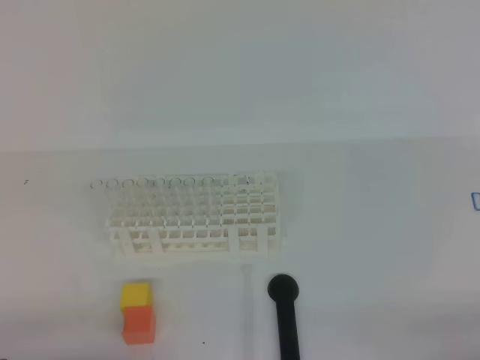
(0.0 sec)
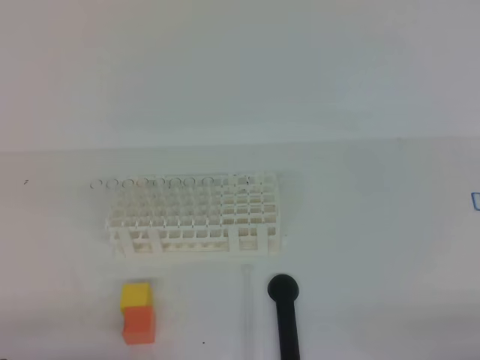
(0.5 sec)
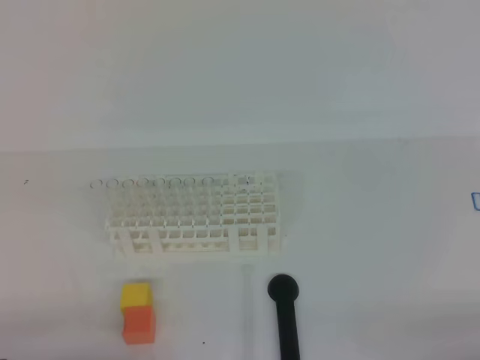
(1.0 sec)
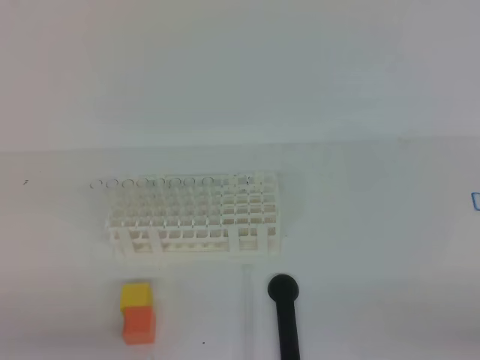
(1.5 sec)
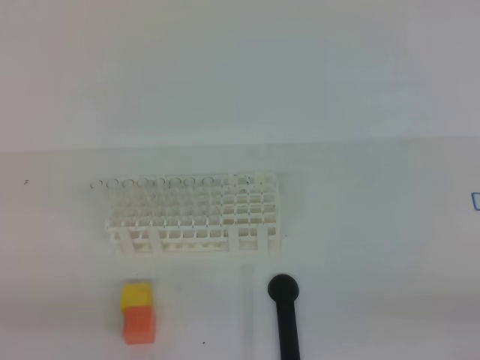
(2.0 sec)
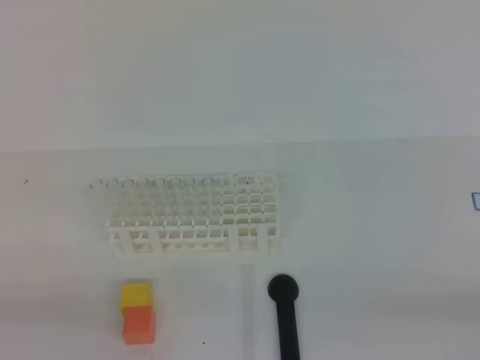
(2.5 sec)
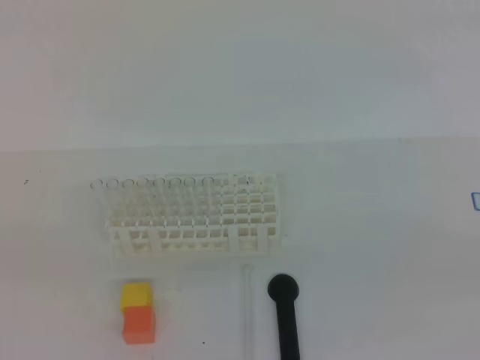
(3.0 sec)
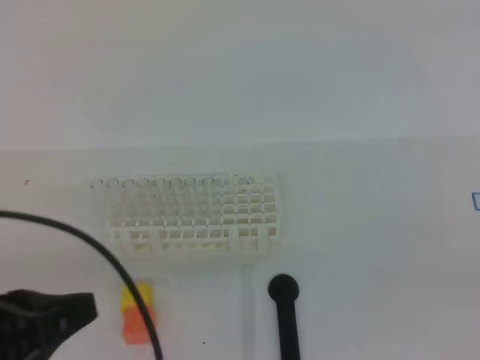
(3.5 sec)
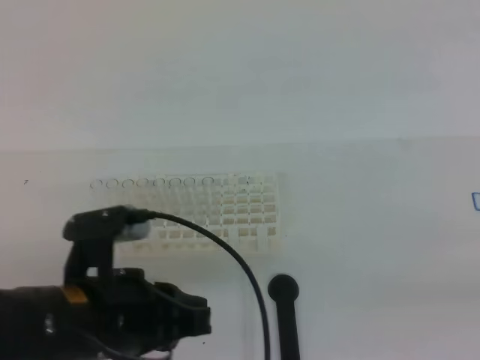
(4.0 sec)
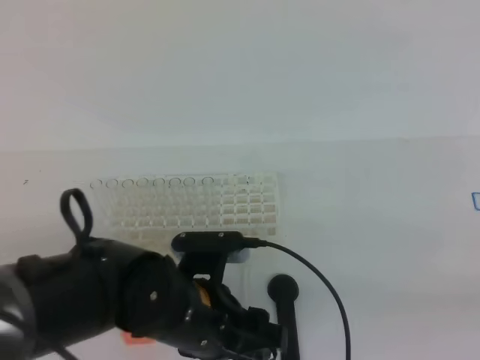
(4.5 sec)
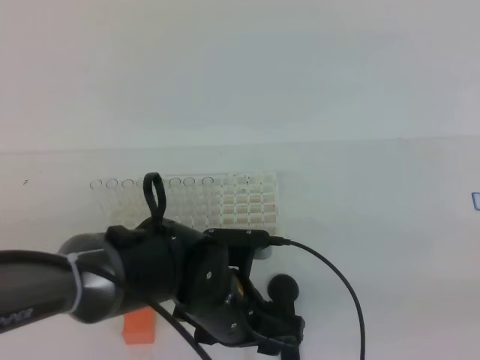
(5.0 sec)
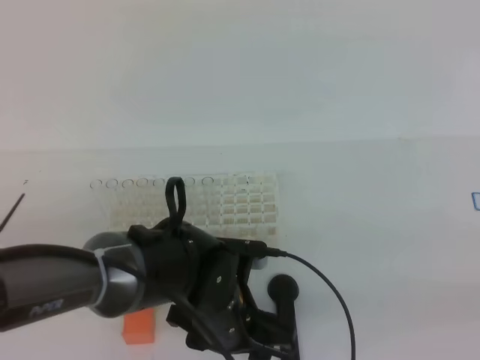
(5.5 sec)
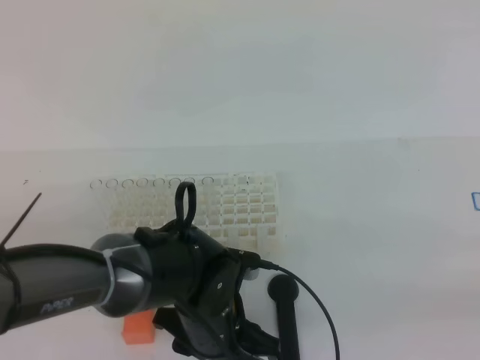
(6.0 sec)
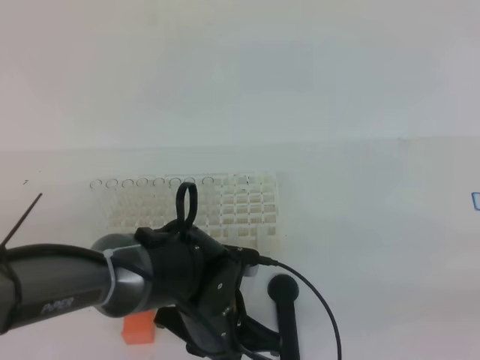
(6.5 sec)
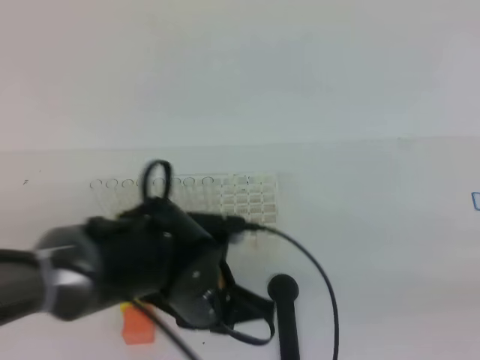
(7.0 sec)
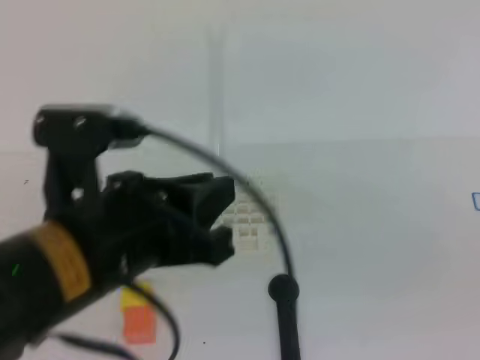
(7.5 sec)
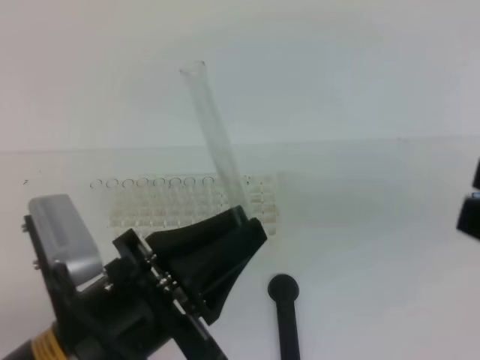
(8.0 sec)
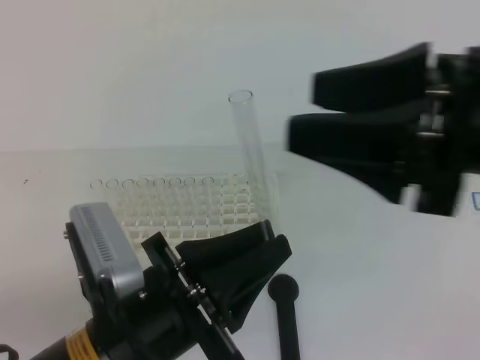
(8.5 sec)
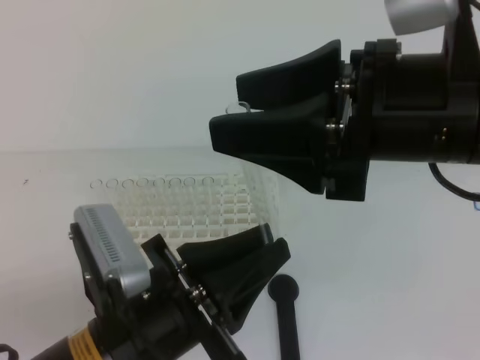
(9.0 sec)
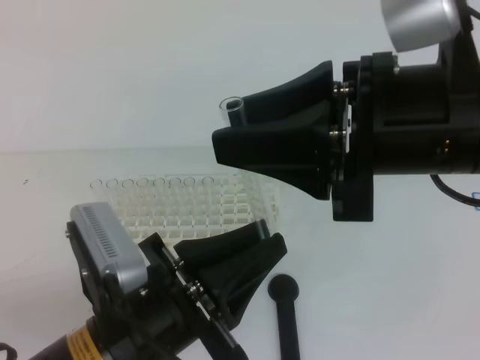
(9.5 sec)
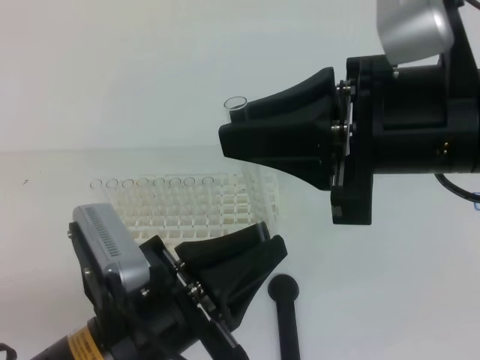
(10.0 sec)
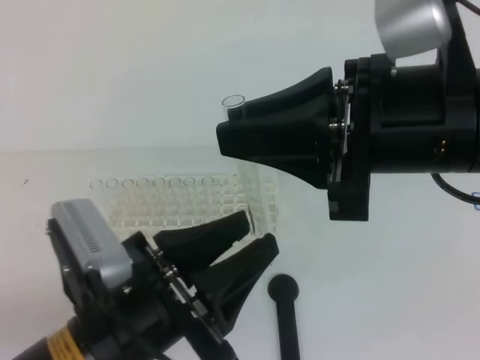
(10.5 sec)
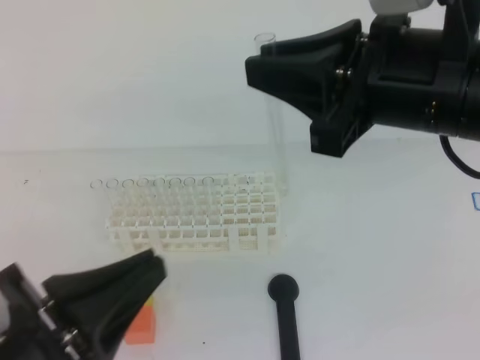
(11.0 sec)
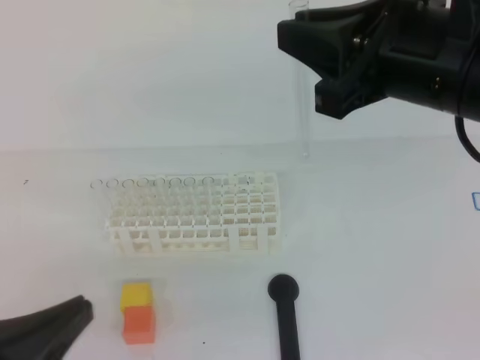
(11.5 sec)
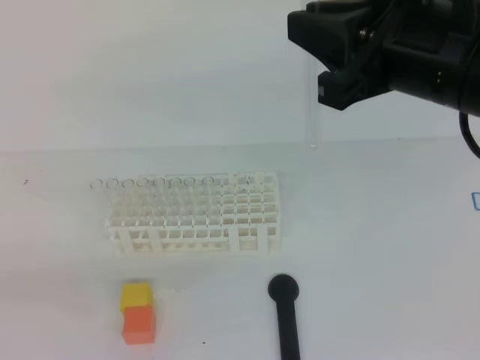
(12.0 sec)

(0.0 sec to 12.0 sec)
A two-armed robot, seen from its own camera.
2.0 sec - 4.0 sec: The left gripper goes some 15 cm to the right and forward. The right gripper goes some 10 cm upward.
4.0 sec - 6.0 sec: The left gripper goes about 15 cm to the right, downward and forward, and opens.
6.0 sec - 8.0 sec: The right gripper heads forward and to the left, covering roughly 10 cm, and opens up; the left gripper heads upward, backward and to the left, covering approximately 20 cm, and closes up.
8.0 sec - 10.0 sec: The right gripper is displaced to the left and forward by roughly 15 cm, and closes up.
10.0 sec - 12.0 sec: The left gripper moves to the left and backward, approximately 20 cm, and opens, then closes once more. Meanwhile the right gripper ends up about 5 cm from where it was.

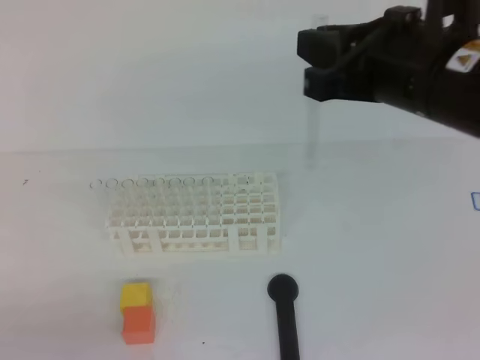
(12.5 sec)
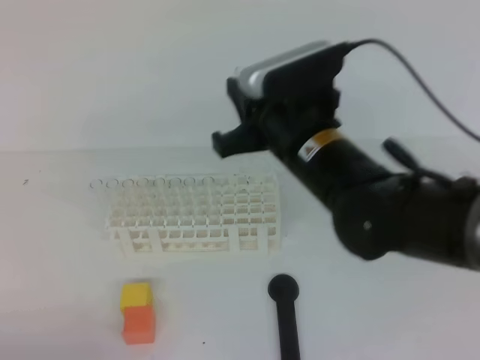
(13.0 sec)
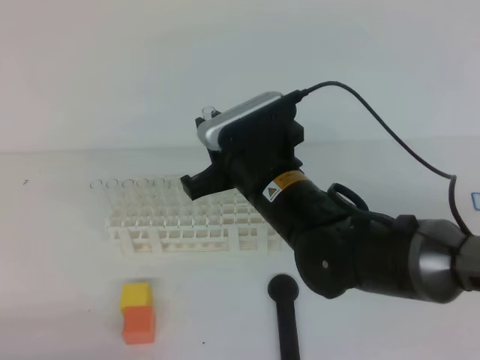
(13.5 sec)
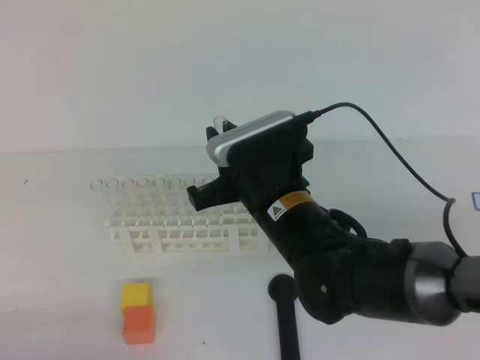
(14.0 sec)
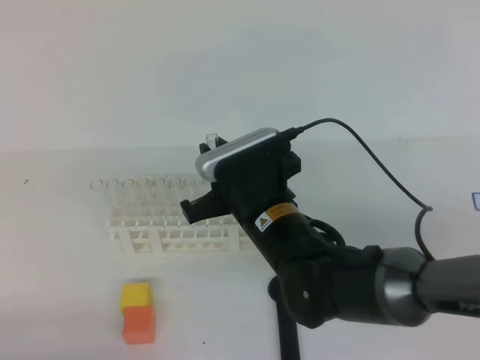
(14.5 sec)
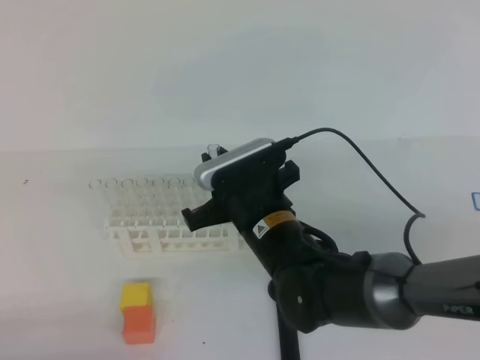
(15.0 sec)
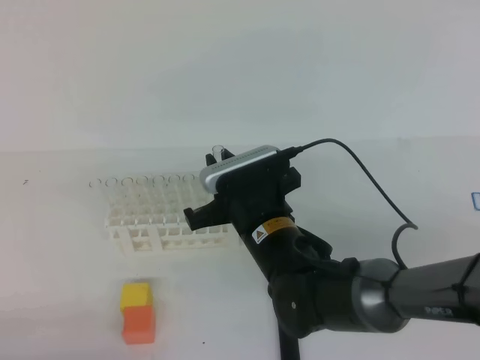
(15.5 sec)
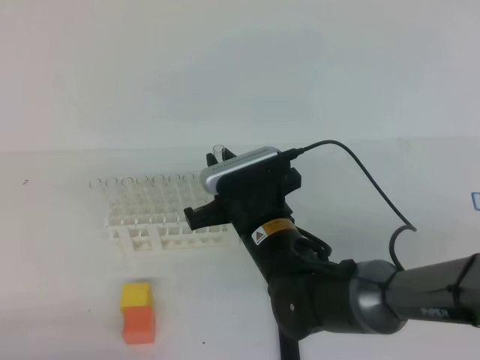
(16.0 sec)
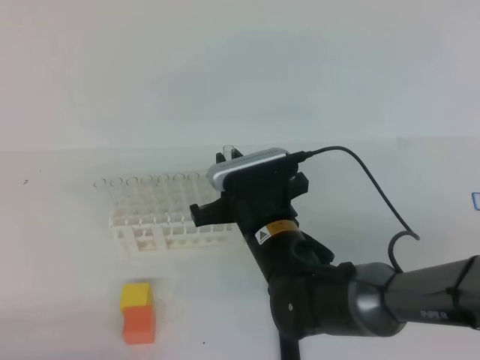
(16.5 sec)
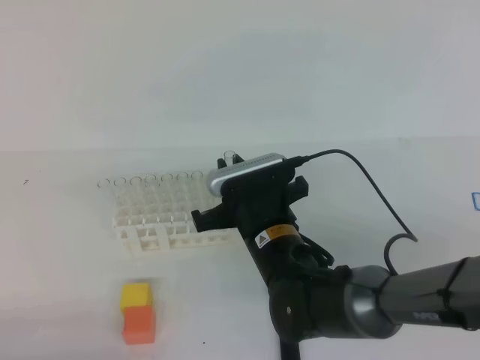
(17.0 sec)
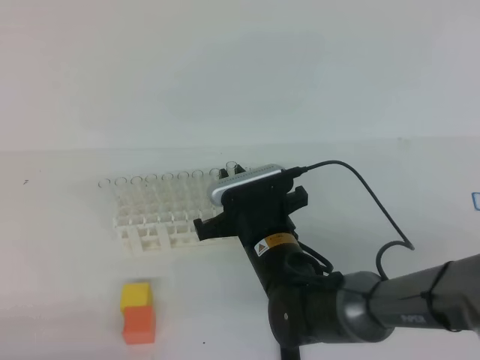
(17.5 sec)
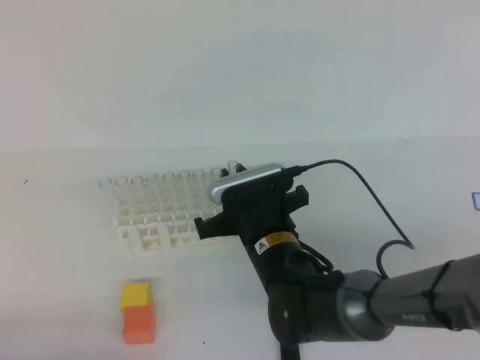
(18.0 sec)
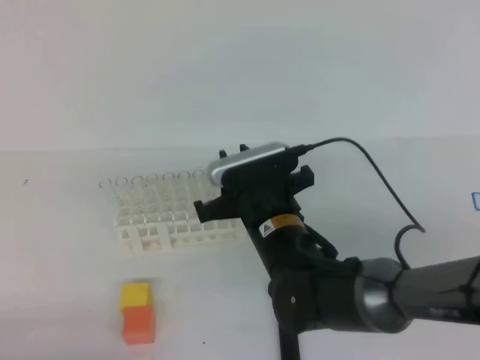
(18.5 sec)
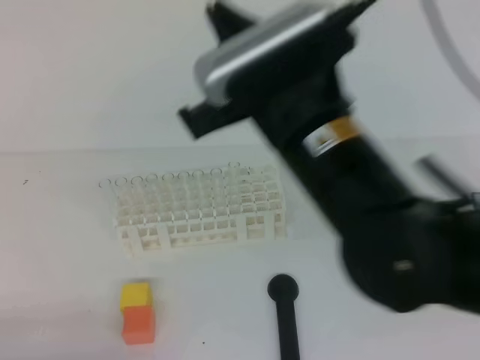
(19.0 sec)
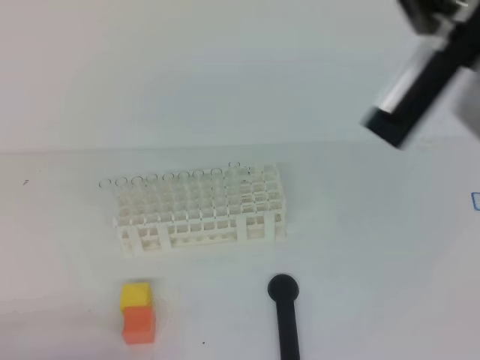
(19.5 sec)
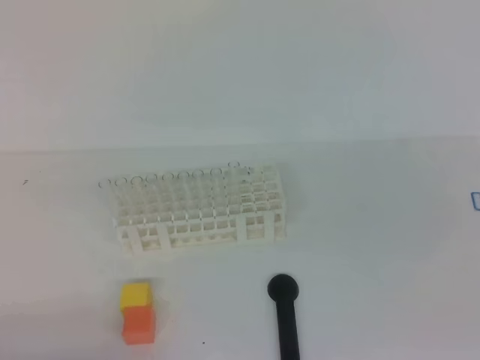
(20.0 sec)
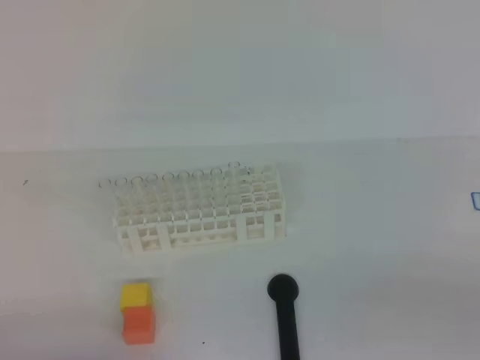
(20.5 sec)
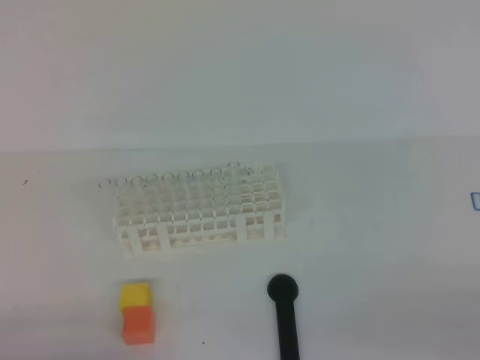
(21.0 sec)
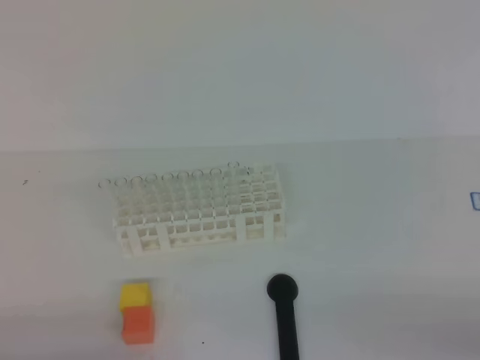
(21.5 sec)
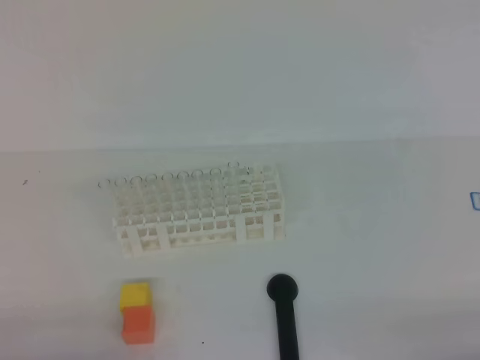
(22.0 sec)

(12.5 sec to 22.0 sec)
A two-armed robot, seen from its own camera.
12.5 sec - 14.5 sec: The right gripper heads downward and to the left, covering roughly 20 cm.
14.5 sec - 16.5 sec: There are only small adjustments of the grippers.
16.5 sec - 18.0 sec: The grippers stay close to where they were, moving slightly.
18.0 sec - 20.0 sec: The right gripper is displaced upward, to the right and backward by approximately 40 cm.
20.0 sec - 22.0 sec: The right gripper moves downward and to the right, some 20 cm.
